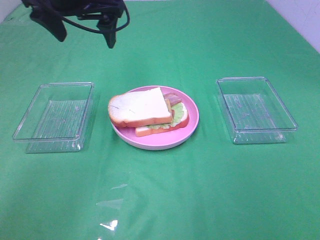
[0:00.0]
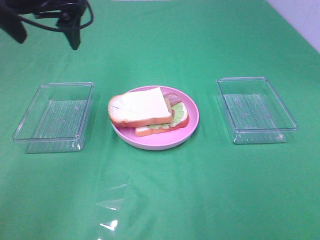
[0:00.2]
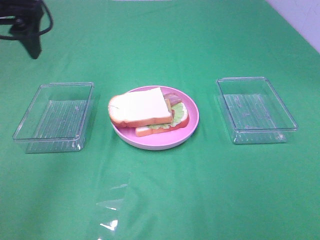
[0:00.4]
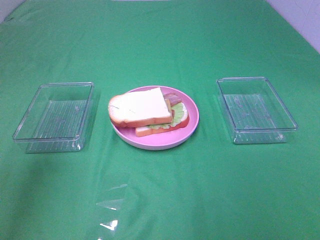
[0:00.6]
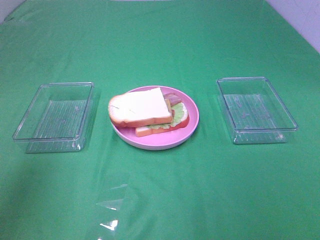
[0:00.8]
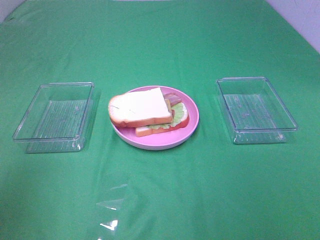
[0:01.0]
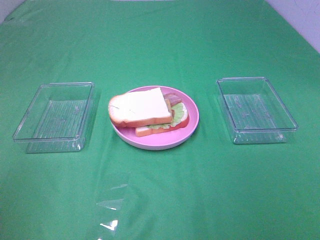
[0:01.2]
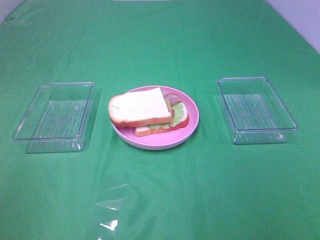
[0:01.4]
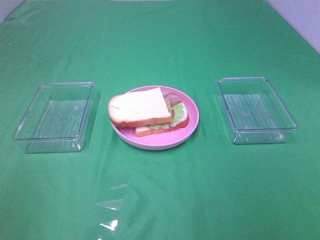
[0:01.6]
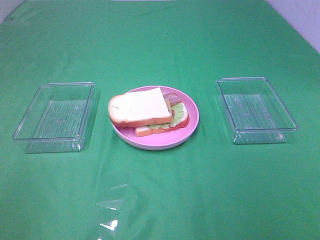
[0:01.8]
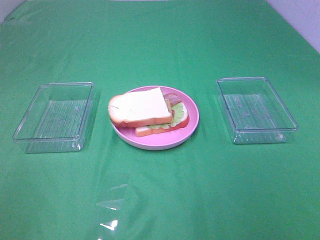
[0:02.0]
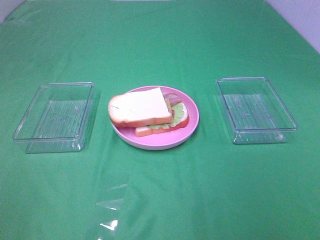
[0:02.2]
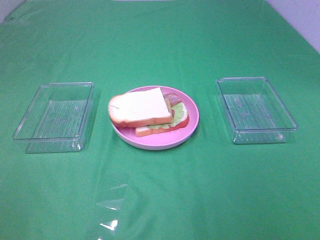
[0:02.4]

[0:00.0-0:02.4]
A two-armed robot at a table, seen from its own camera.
Task of the whole recording: Make sandwiches.
0:00.0 to 0:01.2: The left gripper is displaced backward and to the left by some 35 cm.

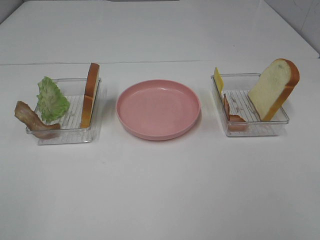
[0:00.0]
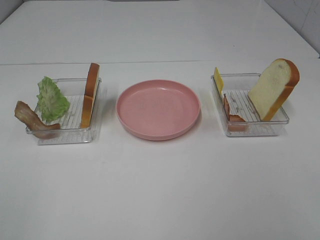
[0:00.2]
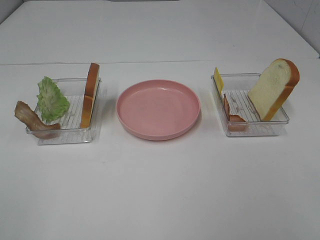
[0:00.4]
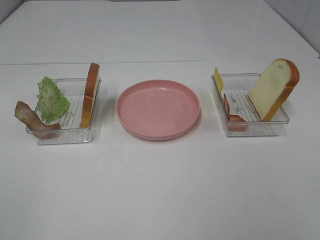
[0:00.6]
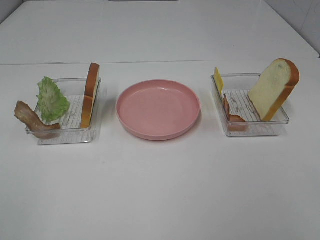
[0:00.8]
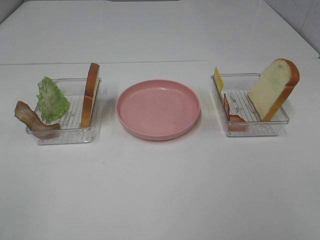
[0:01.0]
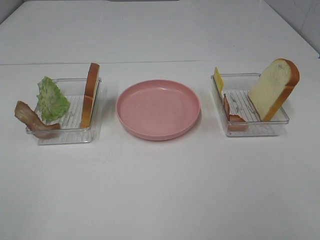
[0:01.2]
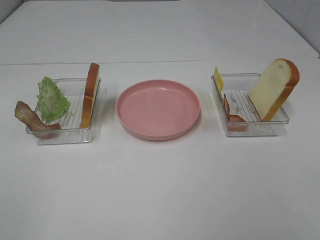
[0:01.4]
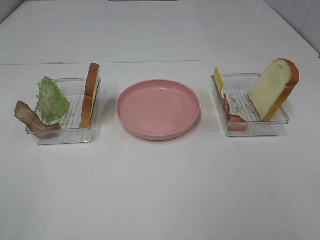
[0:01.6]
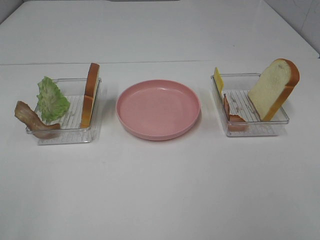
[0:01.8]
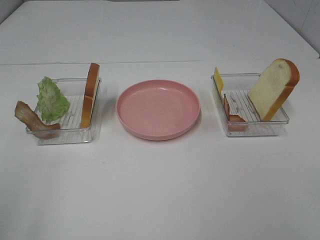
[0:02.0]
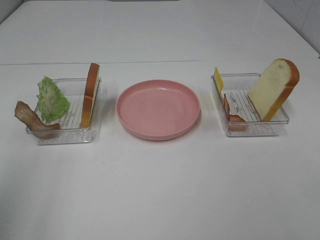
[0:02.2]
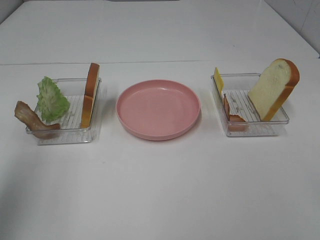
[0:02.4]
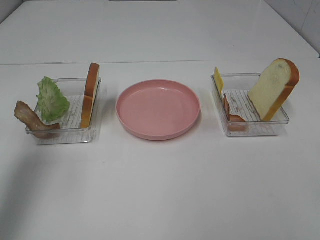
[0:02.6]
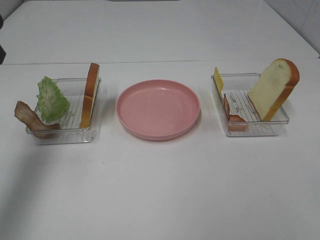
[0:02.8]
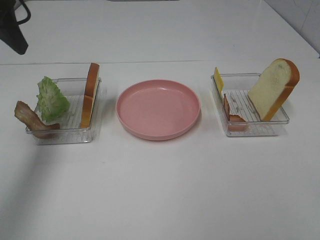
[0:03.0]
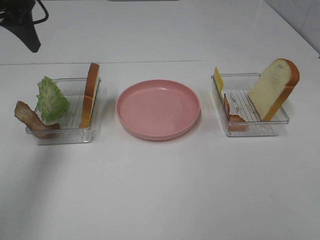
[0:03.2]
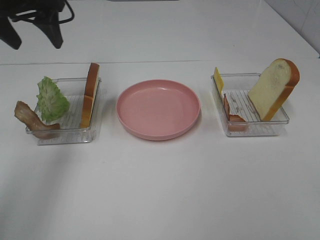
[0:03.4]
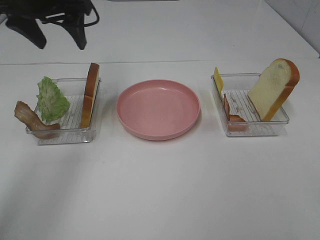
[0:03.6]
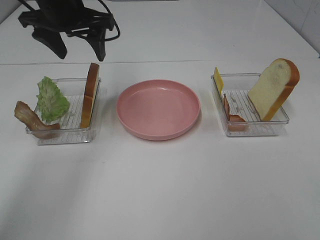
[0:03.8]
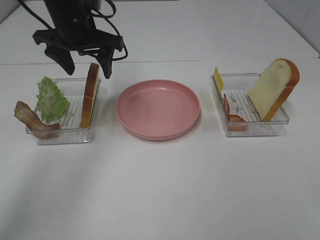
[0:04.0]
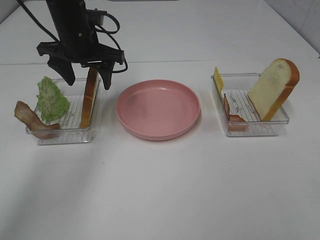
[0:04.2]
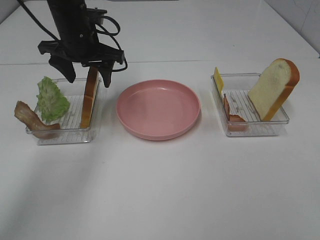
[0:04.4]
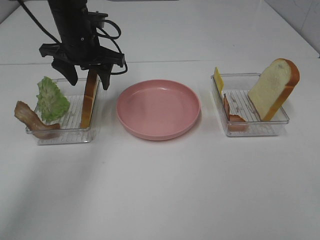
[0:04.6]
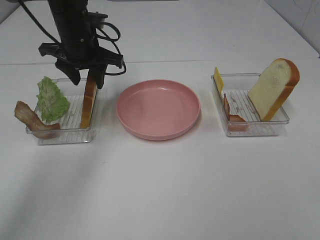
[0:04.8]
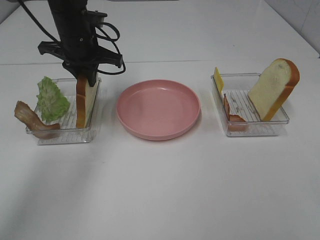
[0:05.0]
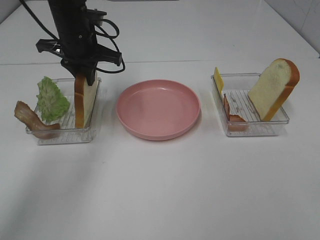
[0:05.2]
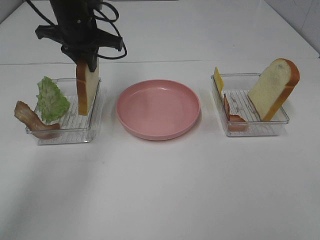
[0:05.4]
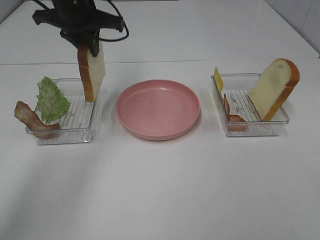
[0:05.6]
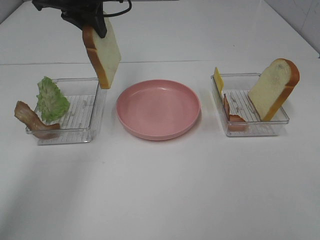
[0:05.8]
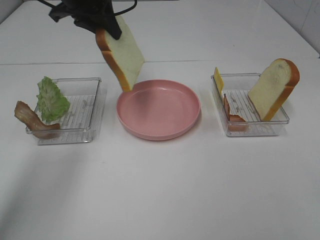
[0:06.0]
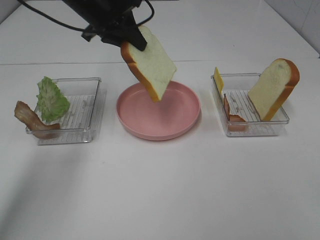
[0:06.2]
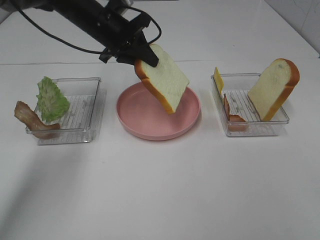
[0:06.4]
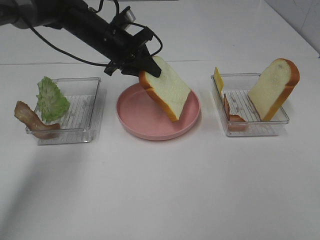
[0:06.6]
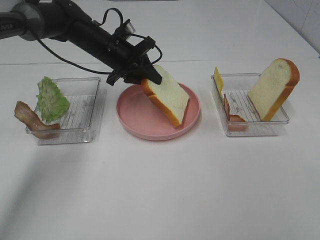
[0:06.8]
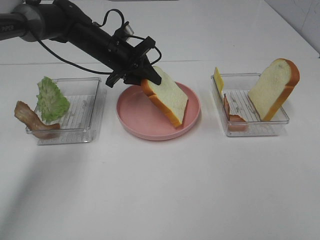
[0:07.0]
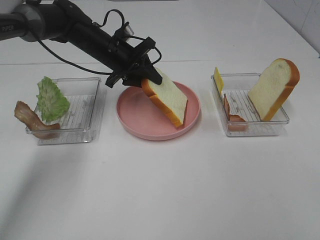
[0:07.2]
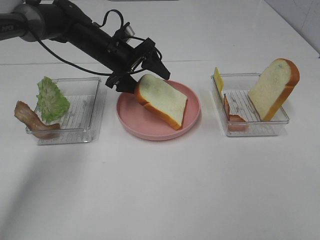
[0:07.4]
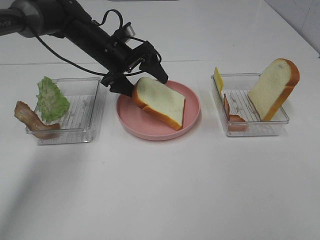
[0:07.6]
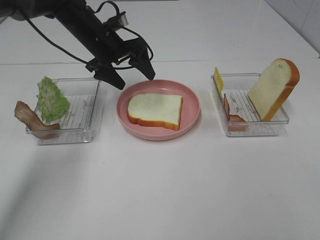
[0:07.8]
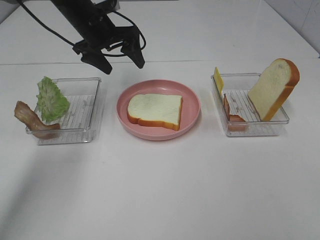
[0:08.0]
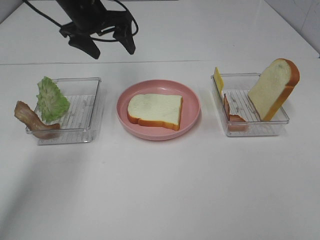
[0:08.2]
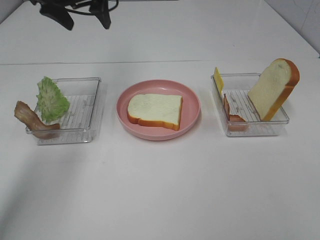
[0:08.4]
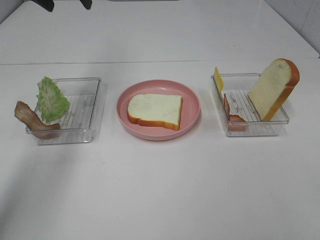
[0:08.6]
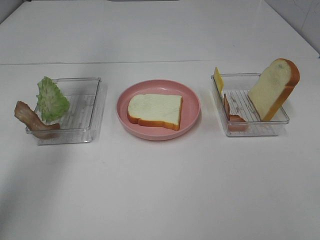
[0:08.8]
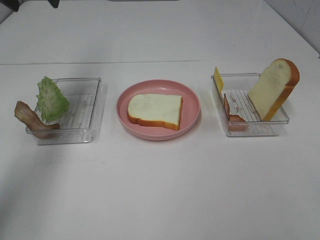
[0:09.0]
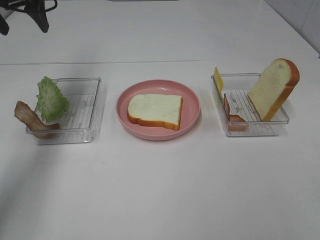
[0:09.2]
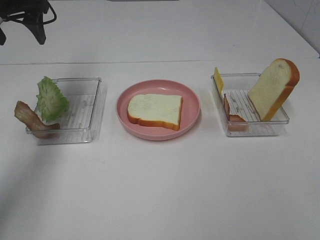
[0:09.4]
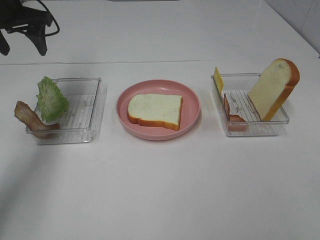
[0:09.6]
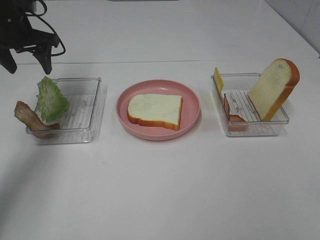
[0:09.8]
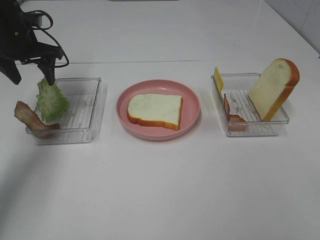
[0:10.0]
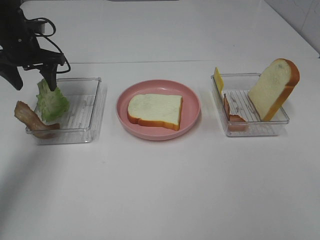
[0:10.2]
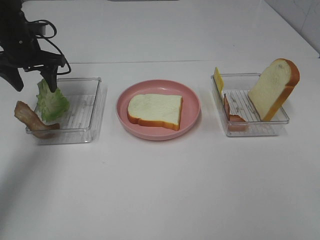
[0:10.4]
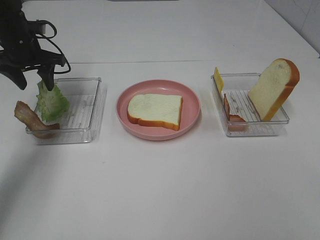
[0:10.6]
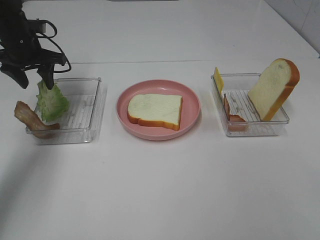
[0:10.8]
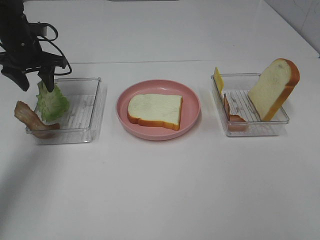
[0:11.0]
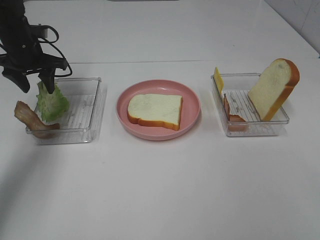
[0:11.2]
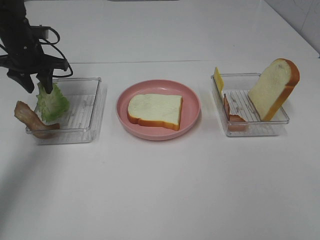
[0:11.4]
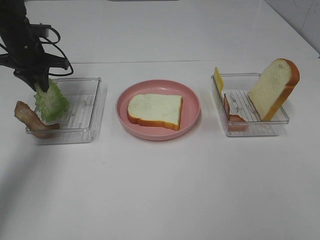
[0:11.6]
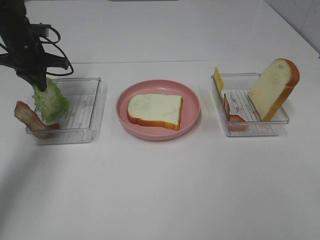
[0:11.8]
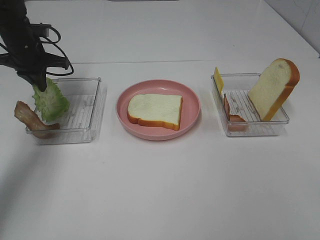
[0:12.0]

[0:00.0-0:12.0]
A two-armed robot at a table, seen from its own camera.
Task of the whole recording: Make sandwiches.
Step, 0:00.0 to 0:05.0: Left hand:grab the bread slice.
Step, 0:05.2 to 0:07.8: Left hand:place the bread slice on the plate.
0:00.0 to 0:01.6: The two grippers keep their place.
0:01.6 to 0:03.0: The left gripper heads forward, covering about 35 cm.
0:03.0 to 0:04.4: The left gripper moves to the right, downward and forward, some 20 cm.
0:04.4 to 0:06.0: The left gripper is displaced upward by roughly 10 cm, and closes up.
0:06.0 to 0:07.6: The left gripper is displaced downward by roughly 15 cm, and opens.
0:07.6 to 0:09.0: The left gripper goes about 25 cm upward and to the left.
0:09.0 to 0:10.4: The left gripper moves downward, approximately 15 cm.
0:10.4 to 0:12.0: The left gripper closes its fingers.

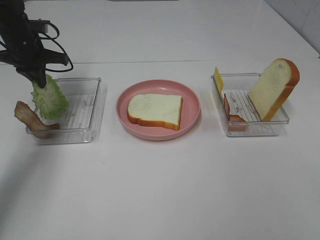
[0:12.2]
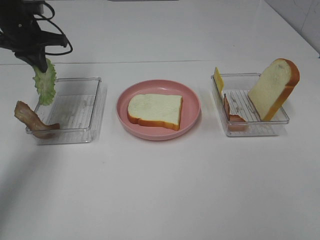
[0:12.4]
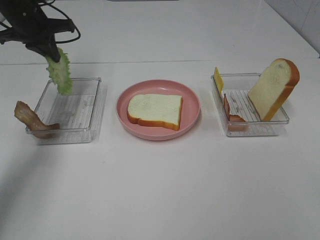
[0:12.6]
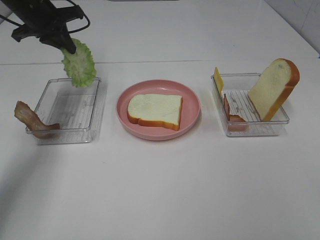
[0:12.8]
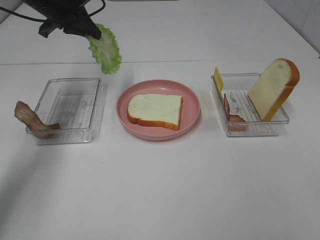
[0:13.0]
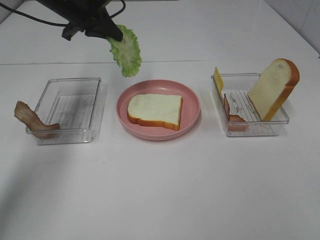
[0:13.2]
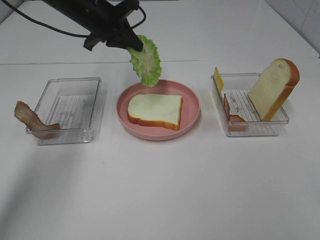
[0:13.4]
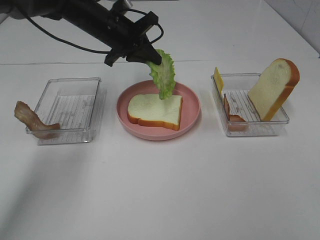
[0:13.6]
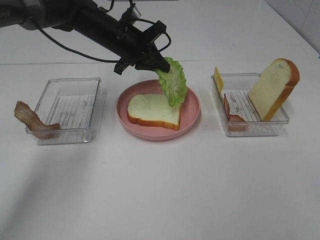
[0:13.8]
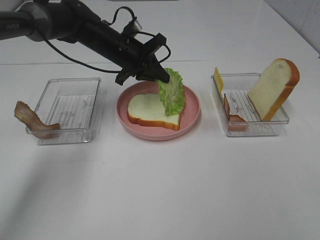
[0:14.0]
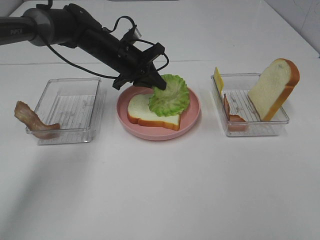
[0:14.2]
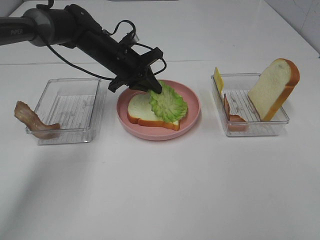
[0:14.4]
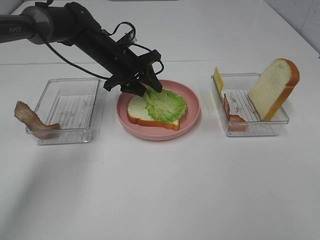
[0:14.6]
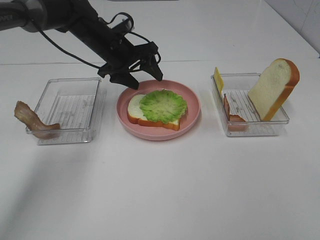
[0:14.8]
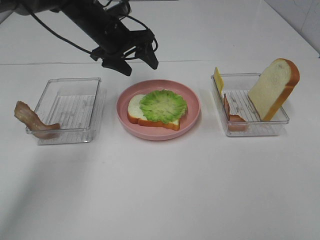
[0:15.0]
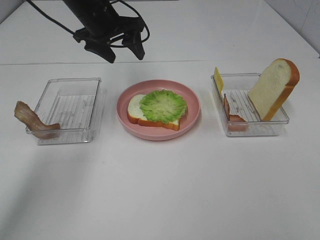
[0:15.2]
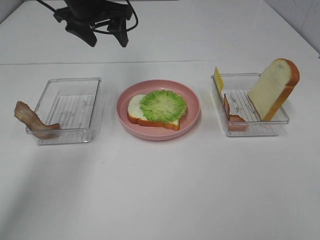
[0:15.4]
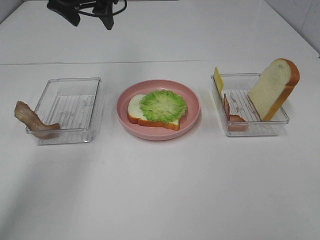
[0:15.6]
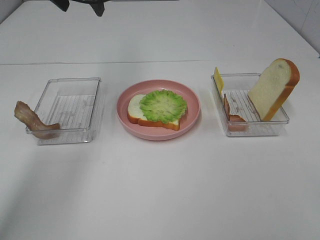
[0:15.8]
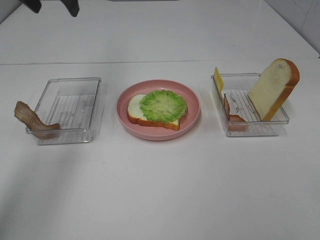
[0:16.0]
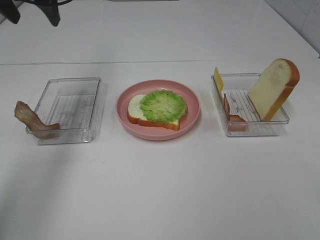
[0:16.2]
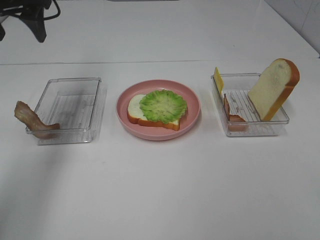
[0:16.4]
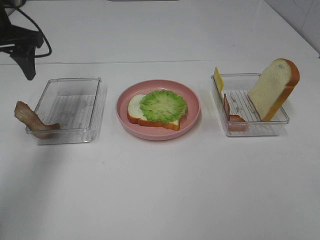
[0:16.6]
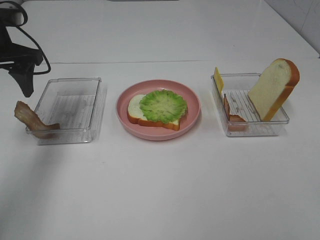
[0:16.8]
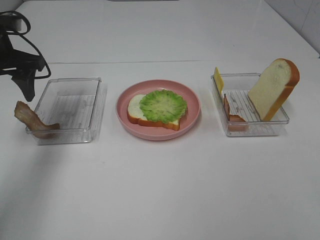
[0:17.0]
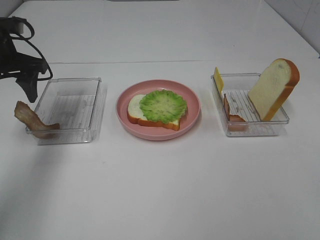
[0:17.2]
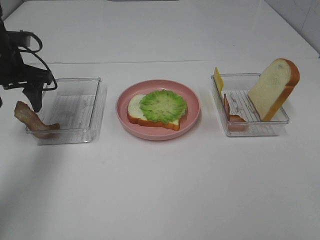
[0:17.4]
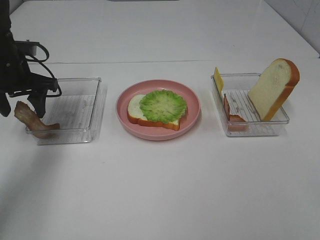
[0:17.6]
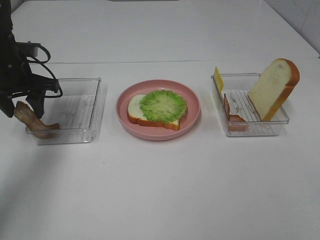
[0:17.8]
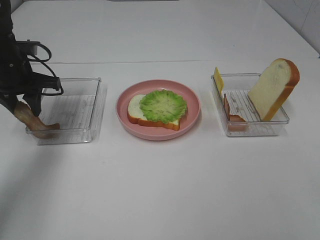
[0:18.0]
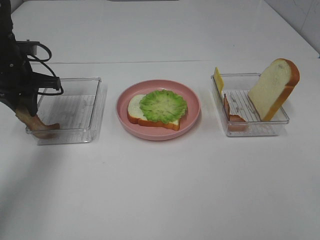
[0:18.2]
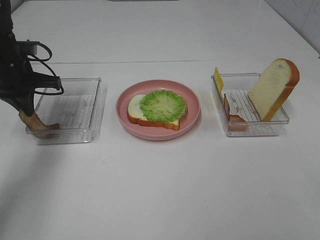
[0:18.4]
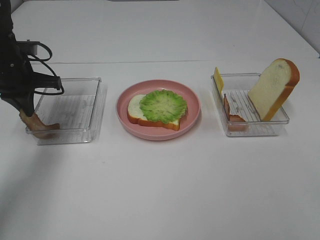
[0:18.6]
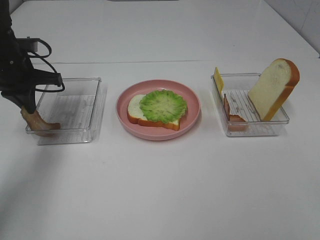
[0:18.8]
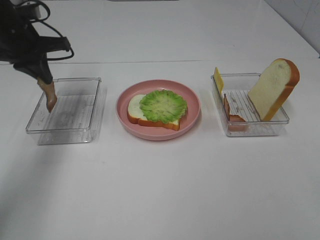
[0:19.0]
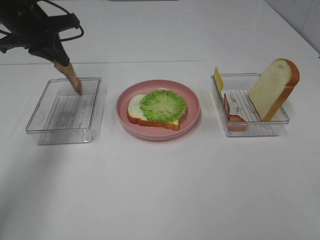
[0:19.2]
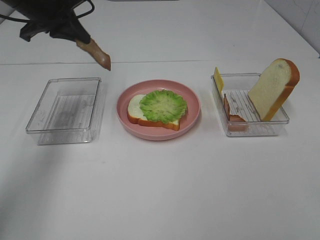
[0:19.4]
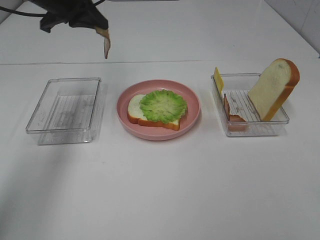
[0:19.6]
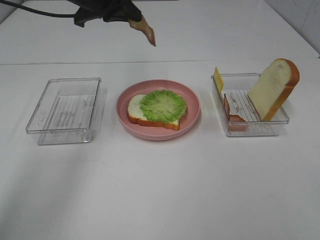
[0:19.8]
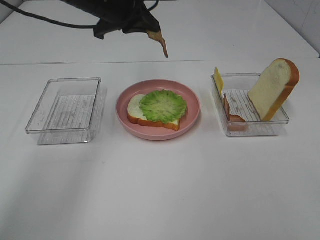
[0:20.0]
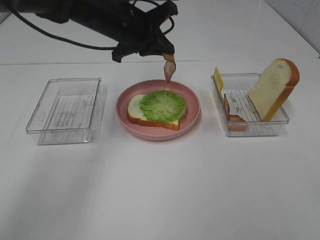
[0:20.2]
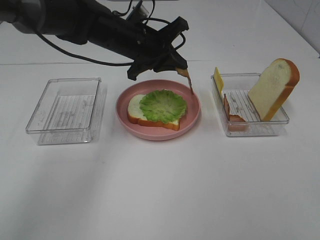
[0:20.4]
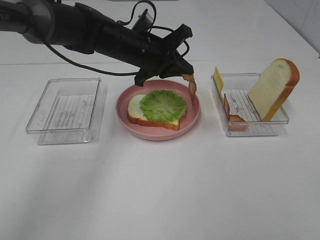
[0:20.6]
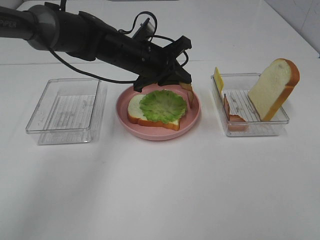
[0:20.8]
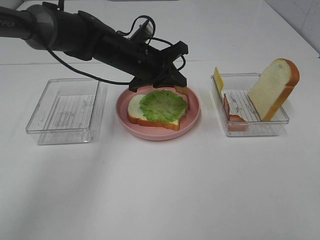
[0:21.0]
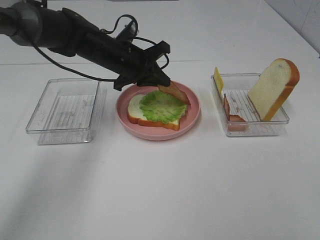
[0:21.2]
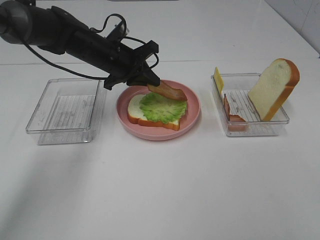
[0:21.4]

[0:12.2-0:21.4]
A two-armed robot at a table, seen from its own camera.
Task of the whole recording: Make sandwiches.
Step, 0:12.4 to 0:14.8: Left hand:place the lettuce slice on the bread slice.
Step, 0:15.0 to 0:18.4: Left hand:grab the bacon.
0:12.2 to 0:13.8: The left gripper goes approximately 20 cm to the right.
0:13.8 to 0:15.2: The left gripper heads upward, covering roughly 5 cm, and opens.
0:15.2 to 0:16.8: The left gripper is displaced to the left and backward by approximately 15 cm.
0:16.8 to 0:18.4: The left gripper travels downward by about 5 cm, and closes.
0:18.4 to 0:19.8: The left gripper travels to the right and upward by roughly 20 cm.
0:19.8 to 0:21.4: The left gripper is displaced downward by about 15 cm.
